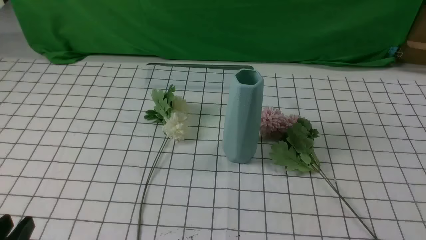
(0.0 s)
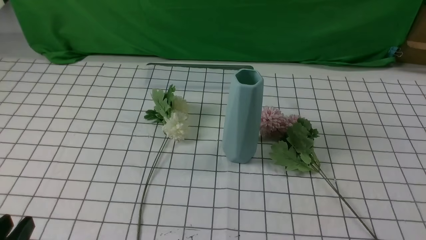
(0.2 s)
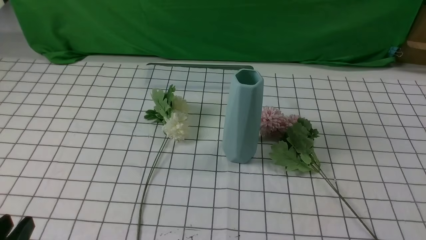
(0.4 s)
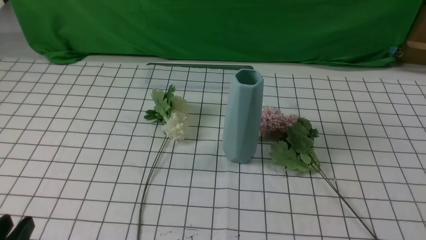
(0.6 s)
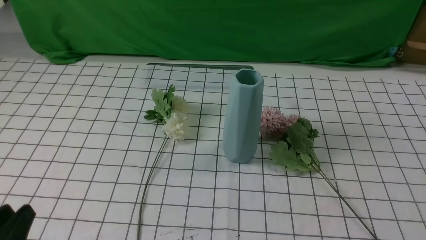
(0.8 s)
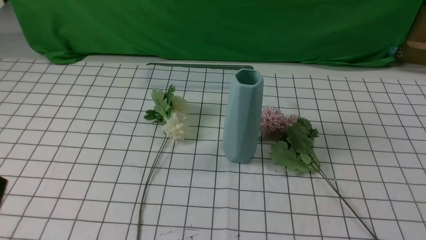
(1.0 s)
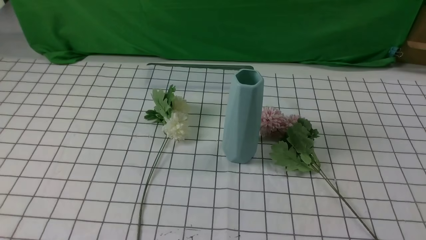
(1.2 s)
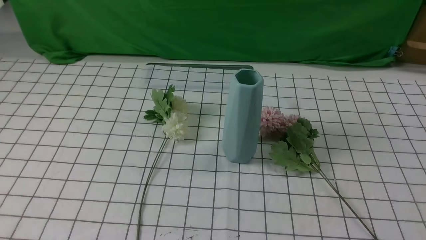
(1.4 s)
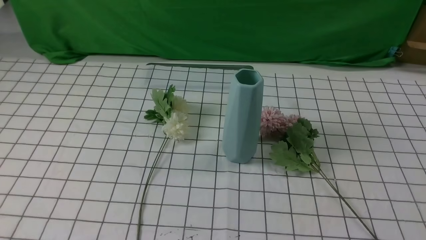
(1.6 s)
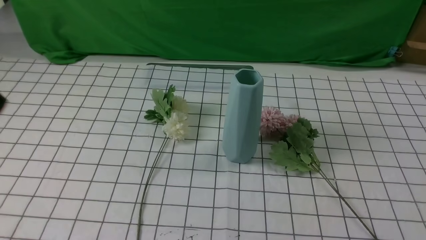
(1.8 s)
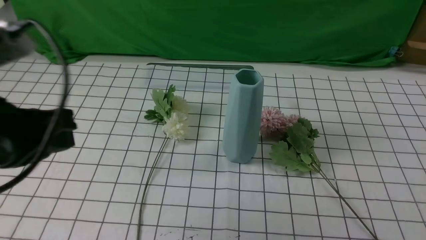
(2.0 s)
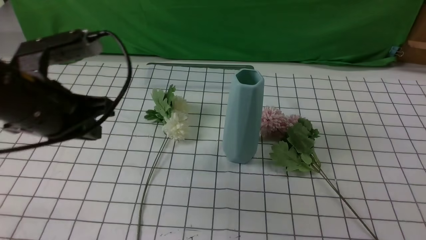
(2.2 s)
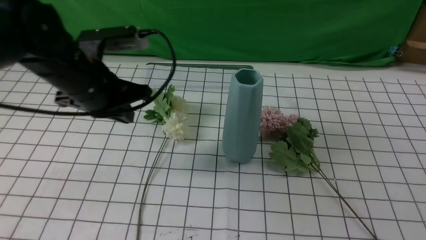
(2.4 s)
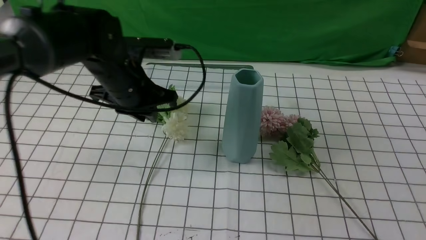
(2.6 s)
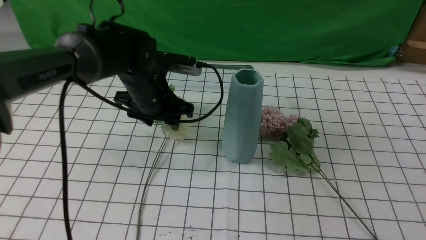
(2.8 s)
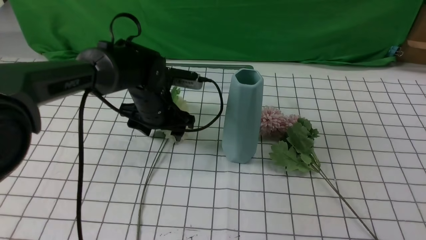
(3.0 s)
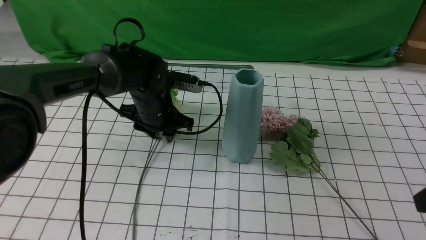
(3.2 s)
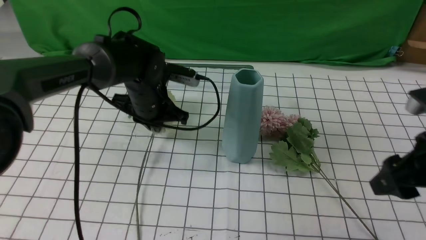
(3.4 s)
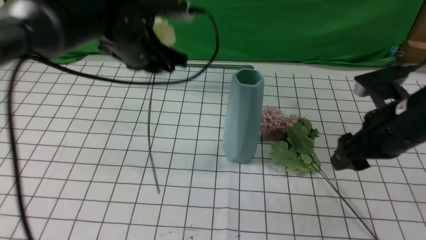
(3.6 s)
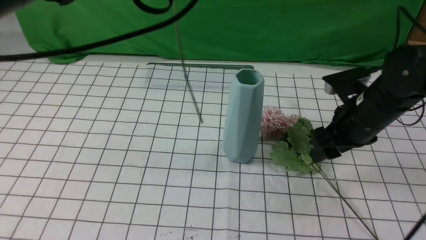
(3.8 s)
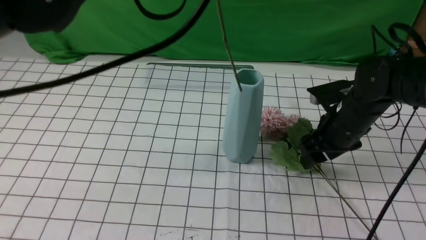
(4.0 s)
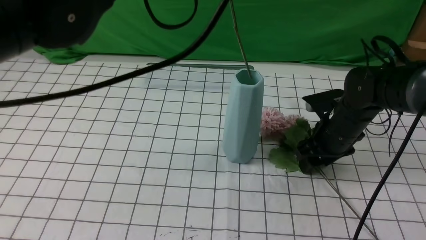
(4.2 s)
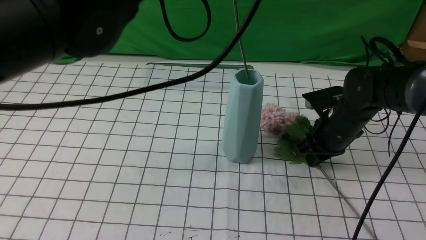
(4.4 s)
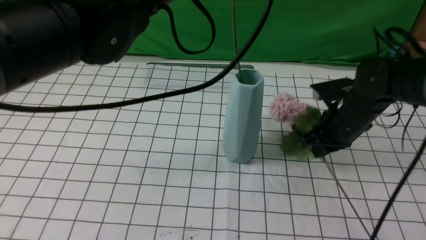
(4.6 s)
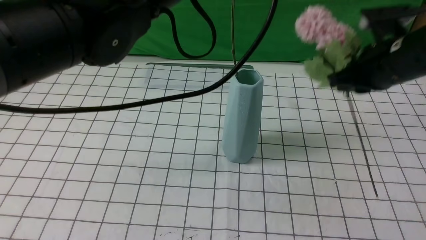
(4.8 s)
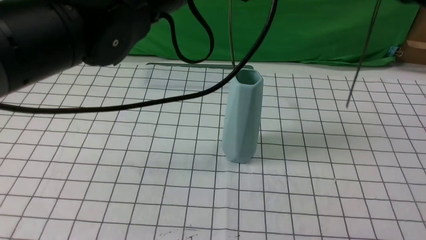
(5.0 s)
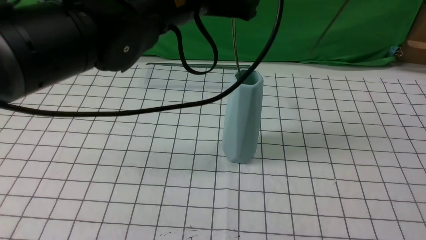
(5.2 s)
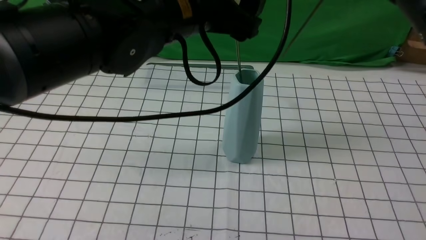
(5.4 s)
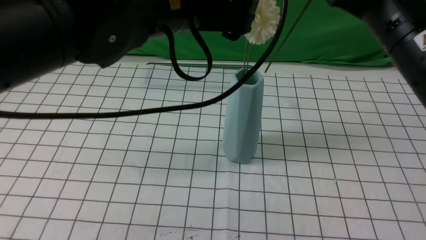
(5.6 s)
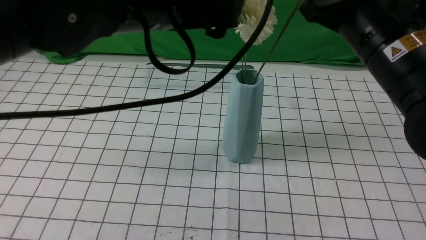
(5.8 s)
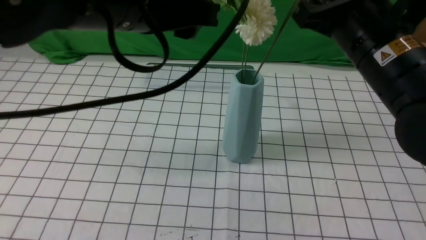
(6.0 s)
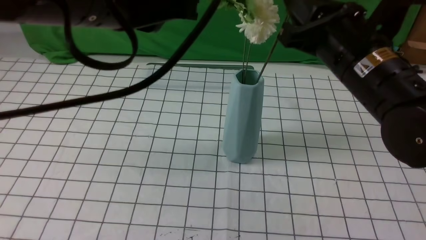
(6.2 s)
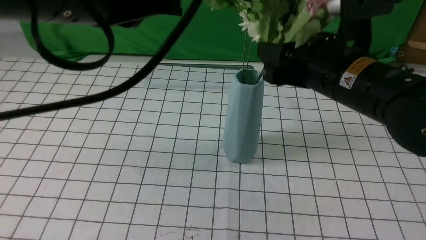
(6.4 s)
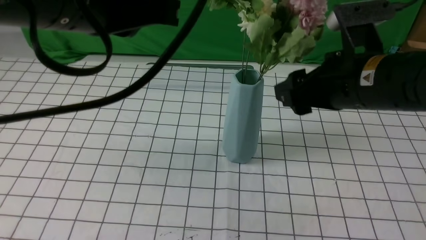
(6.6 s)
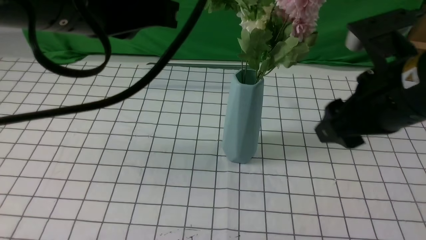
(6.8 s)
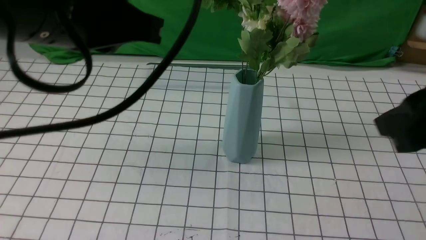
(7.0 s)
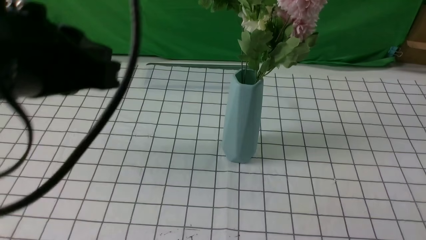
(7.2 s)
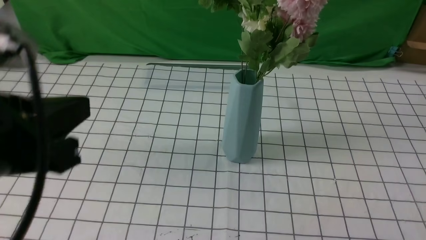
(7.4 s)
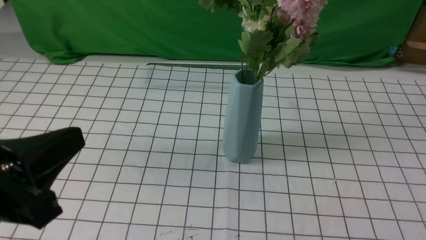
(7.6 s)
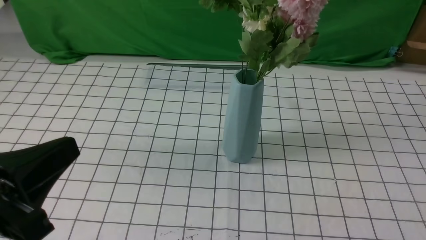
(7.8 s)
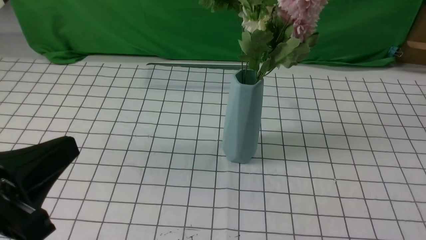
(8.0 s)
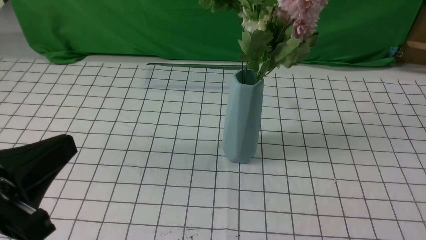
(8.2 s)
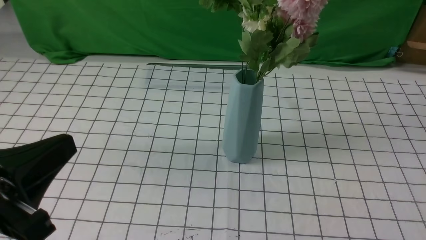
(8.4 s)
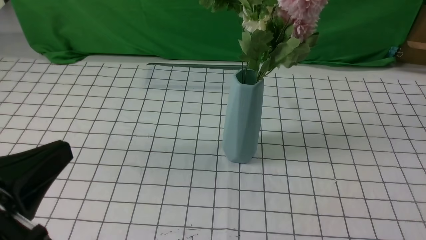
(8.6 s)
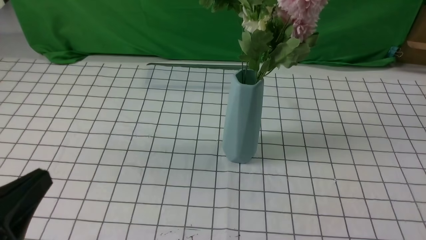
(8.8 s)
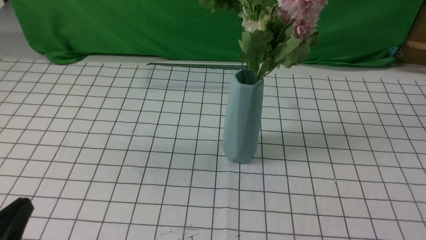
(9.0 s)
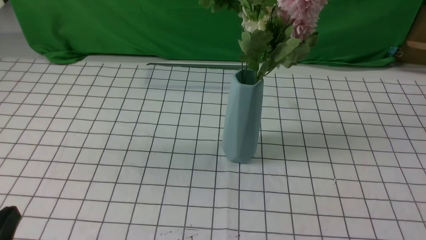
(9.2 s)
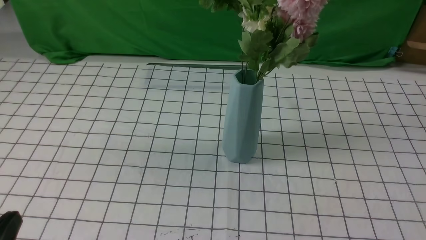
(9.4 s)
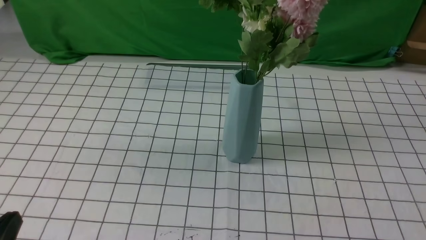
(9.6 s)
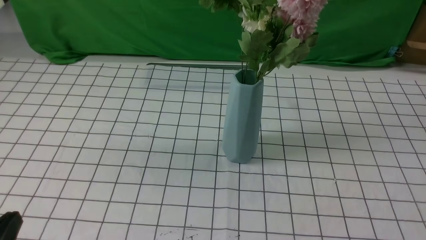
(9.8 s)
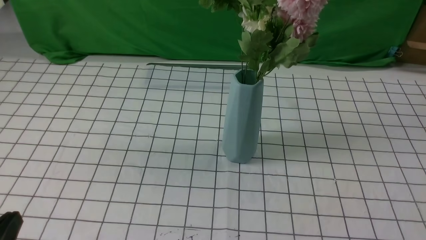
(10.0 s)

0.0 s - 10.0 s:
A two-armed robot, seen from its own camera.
Task of the whole recording: insert the flowers into the vase on the table with the white tablecloth.
Step, 0.0 s - 6.6 s: Put the flowers in the vase with both hands.
0.0 s - 1.4 s: The left gripper shifts roughly 10 cm upward.
1.4 s - 2.8 s: The right gripper heads upward and forward, covering some 15 cm. The left gripper goes approximately 40 cm forward and to the right, and opens up.
2.8 s - 4.2 s: The left gripper goes approximately 25 cm upward and backward, and closes its fingers. The right gripper shifts some 30 cm forward and downward.
4.2 s - 5.8 s: The left gripper opens its fingers; the right gripper goes approximately 20 cm upward and backward, and closes.
5.8 s - 7.2 s: The right gripper moves backward and to the right, roughly 20 cm, and opens, then closes once more; the left gripper heads backward and to the left, covering some 15 cm, and closes its fingers.
7.2 s - 8.6 s: The left gripper heads downward, backward and to the left, covering some 15 cm.
8.6 s - 10.0 s: The left gripper is displaced downward by approximately 10 cm.

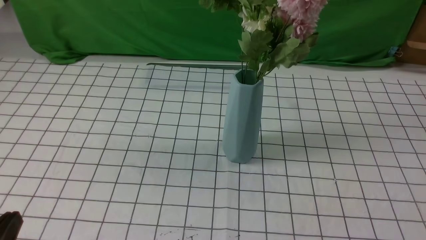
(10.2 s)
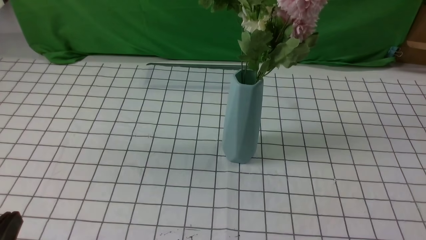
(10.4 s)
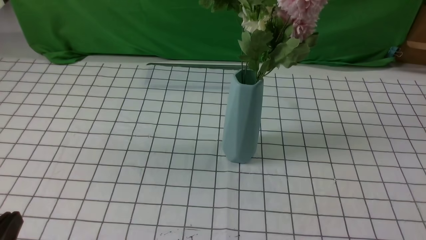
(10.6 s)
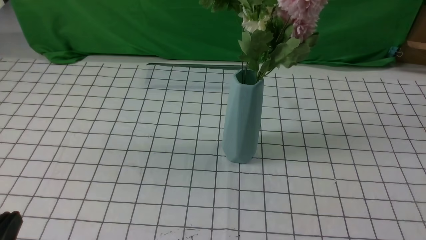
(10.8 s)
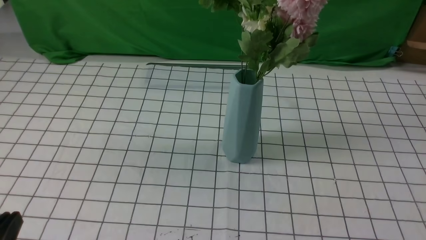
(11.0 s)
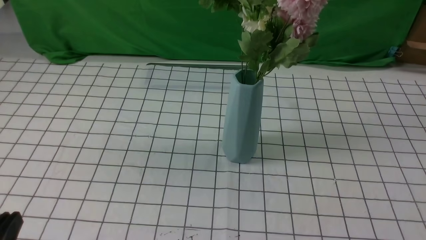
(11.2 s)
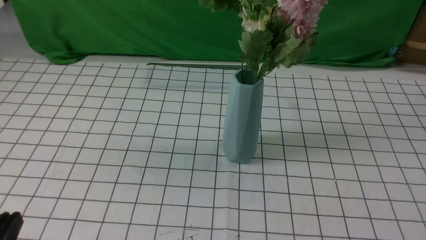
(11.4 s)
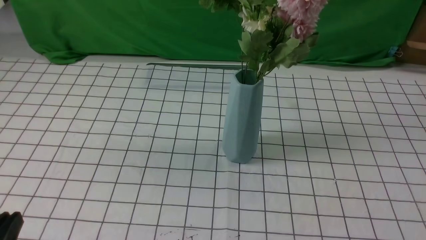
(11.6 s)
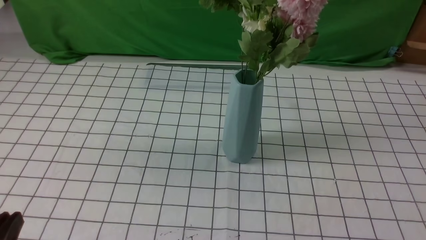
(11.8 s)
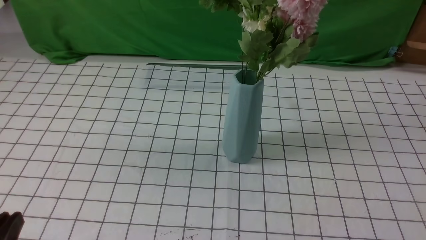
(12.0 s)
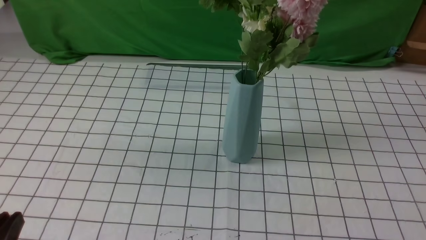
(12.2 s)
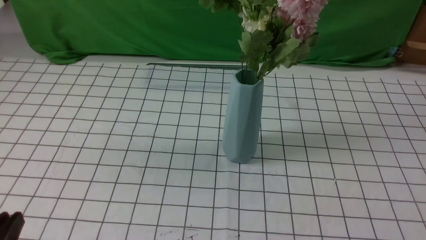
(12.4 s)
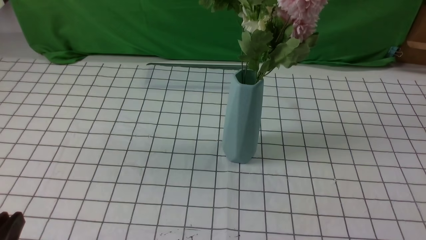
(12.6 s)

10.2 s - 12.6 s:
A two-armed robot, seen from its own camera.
Task of the whole recording: insert the flowers into the vase on the table with the white tablecloth.
11.4 s - 12.6 s: Both grippers stay put.

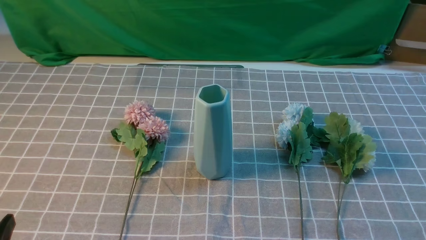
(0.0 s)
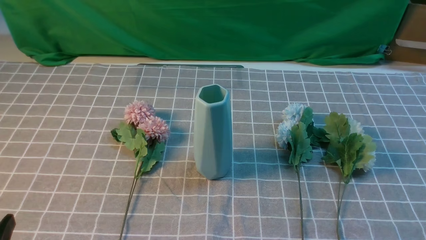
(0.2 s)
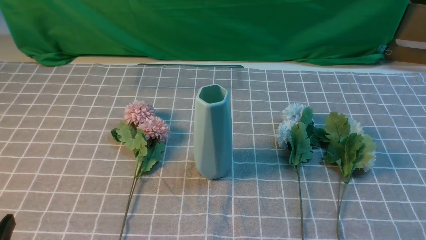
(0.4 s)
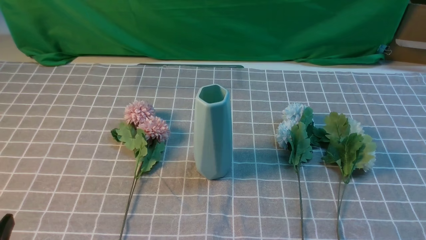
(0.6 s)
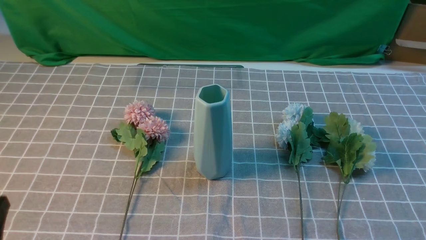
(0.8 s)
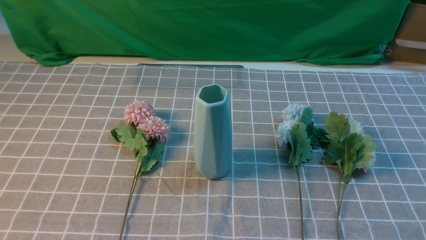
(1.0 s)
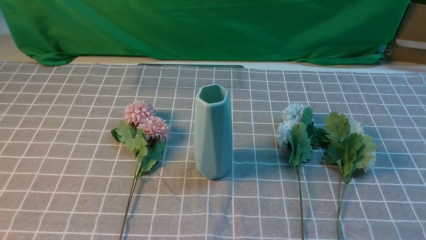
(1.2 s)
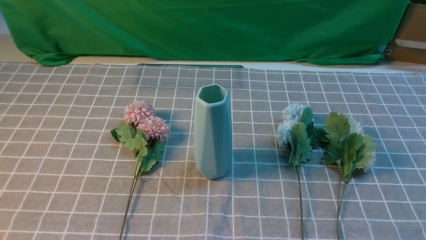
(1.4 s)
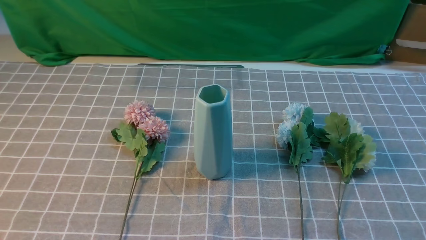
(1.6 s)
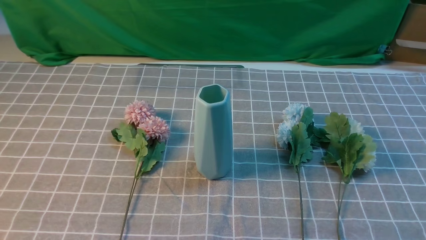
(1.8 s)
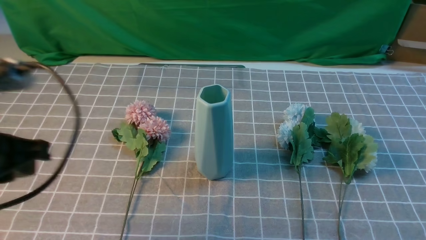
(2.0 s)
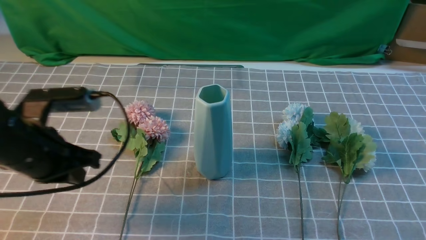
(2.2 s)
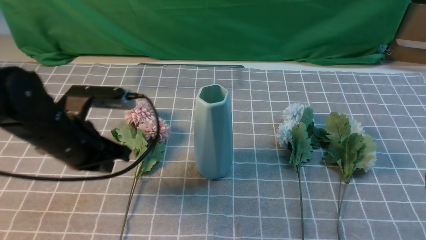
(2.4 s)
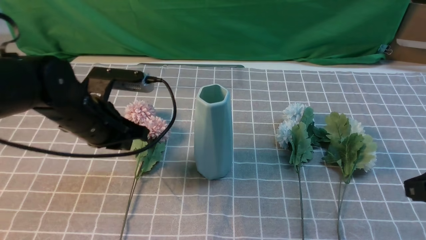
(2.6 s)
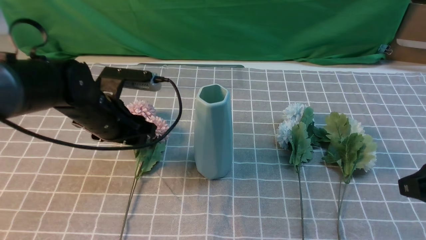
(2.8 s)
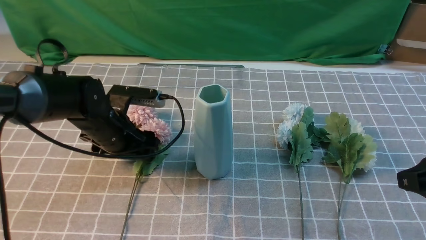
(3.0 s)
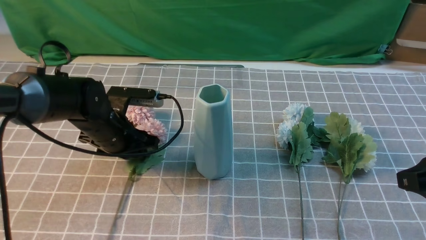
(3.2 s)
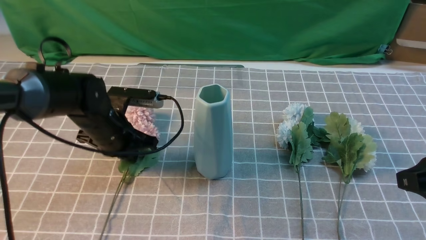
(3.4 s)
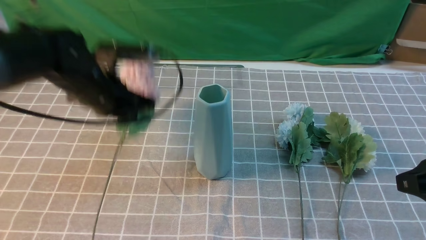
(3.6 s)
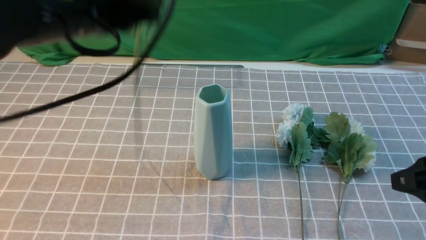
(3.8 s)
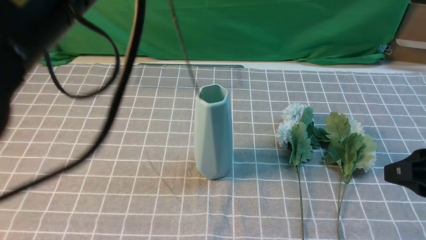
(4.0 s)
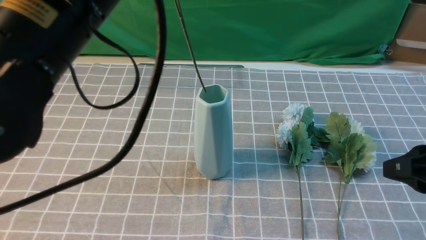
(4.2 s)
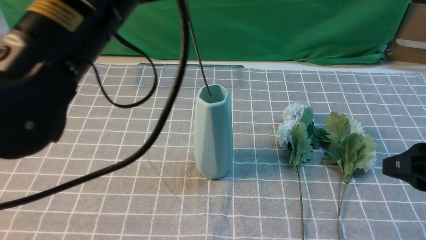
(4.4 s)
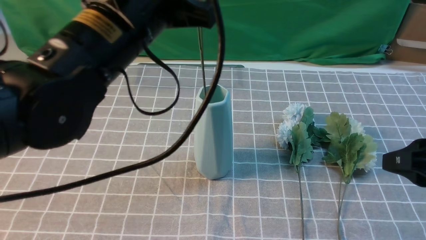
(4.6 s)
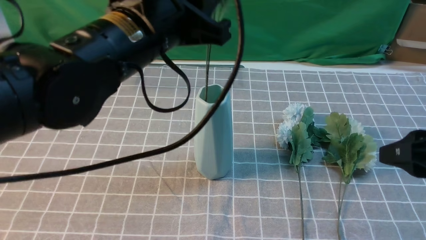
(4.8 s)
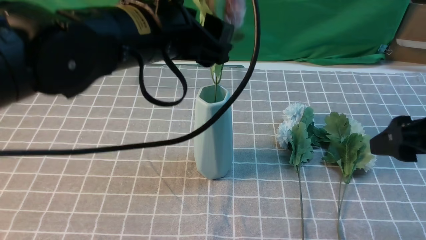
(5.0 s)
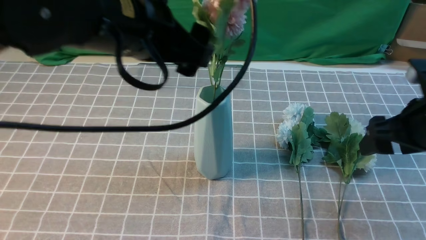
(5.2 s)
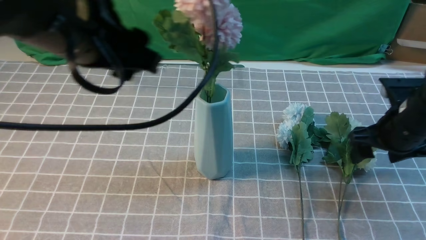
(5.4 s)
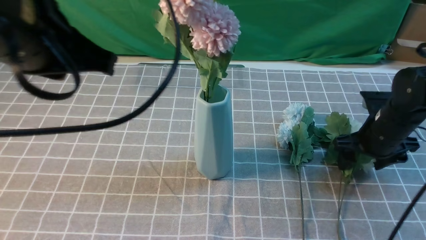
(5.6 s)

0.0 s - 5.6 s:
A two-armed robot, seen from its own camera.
Task of the whole recording: insert the flowers into the vase on the table with the grey tablecloth.
Step, 0.0 s - 3.2 s: use the left arm to grab a bunch of fresh flowers.
Step, 3.4 s - 5.2 s: use the left arm to insert the flowers into the vase.
1.4 s - 2.8 s: The left gripper travels forward by some 30 cm, and opens up, while the right gripper is displaced forward and upward by about 15 cm.
2.8 s - 4.2 s: The left gripper shifts approximately 25 cm upward and backward, and closes up.
4.2 s - 5.6 s: The right gripper shifts some 20 cm forward and downward, and opens; the left gripper opens and closes again.
